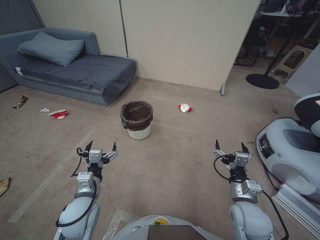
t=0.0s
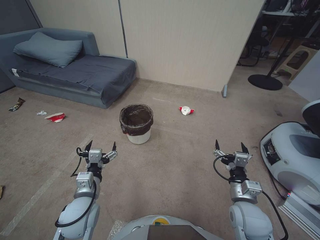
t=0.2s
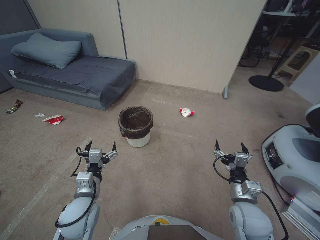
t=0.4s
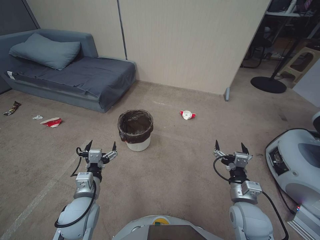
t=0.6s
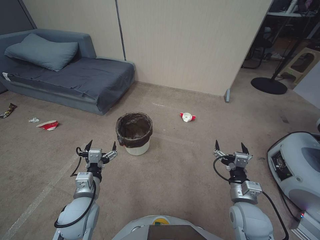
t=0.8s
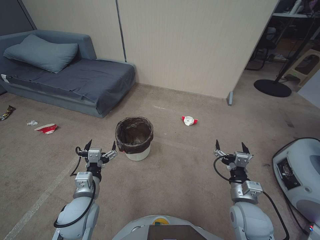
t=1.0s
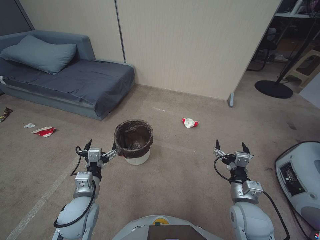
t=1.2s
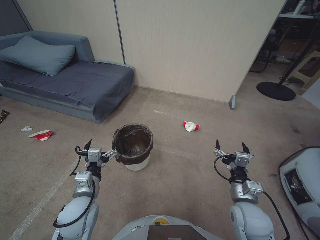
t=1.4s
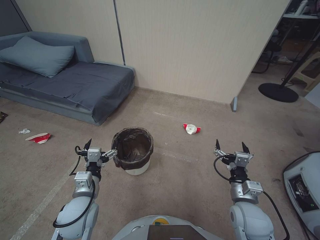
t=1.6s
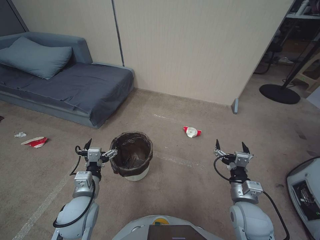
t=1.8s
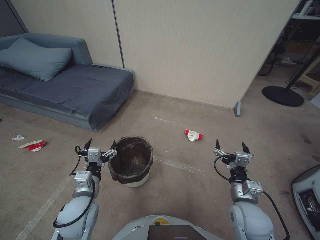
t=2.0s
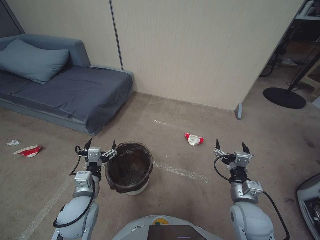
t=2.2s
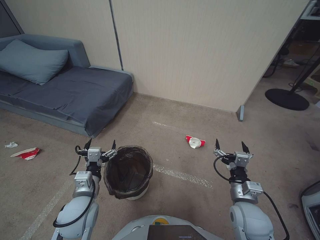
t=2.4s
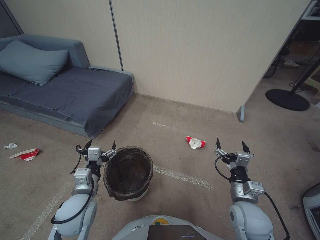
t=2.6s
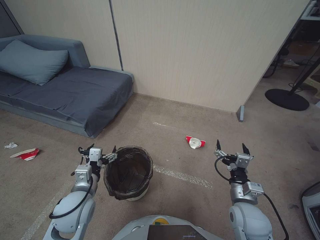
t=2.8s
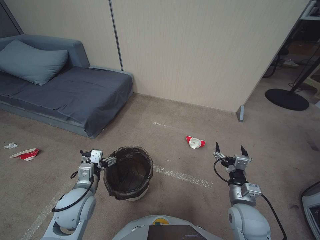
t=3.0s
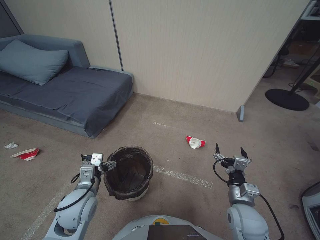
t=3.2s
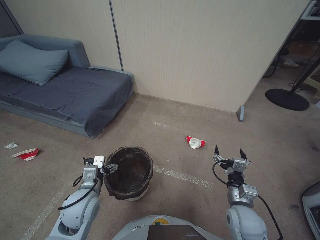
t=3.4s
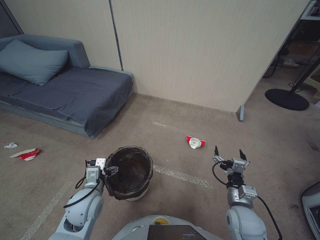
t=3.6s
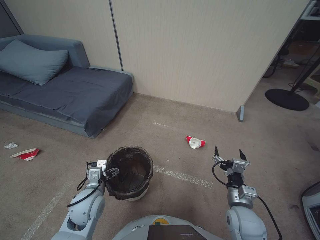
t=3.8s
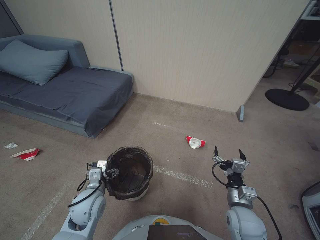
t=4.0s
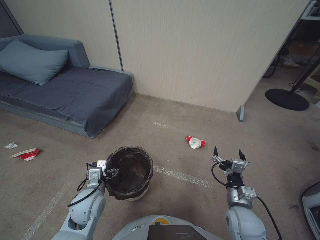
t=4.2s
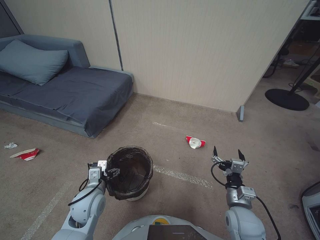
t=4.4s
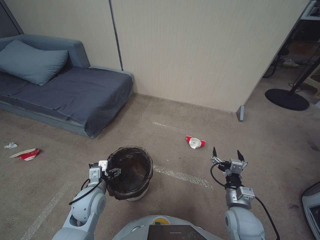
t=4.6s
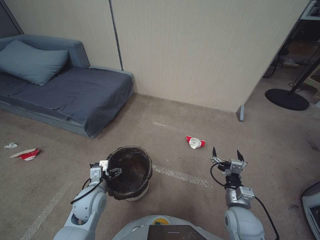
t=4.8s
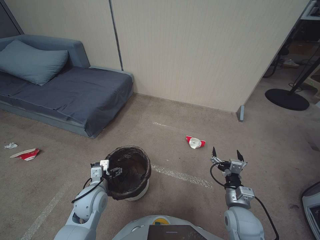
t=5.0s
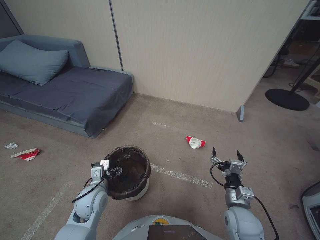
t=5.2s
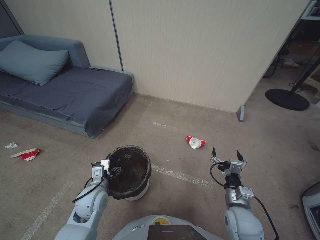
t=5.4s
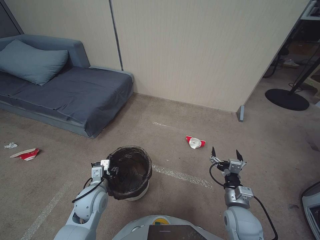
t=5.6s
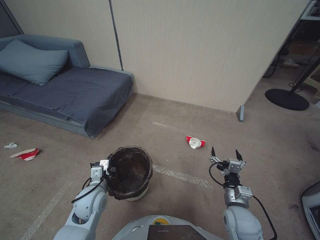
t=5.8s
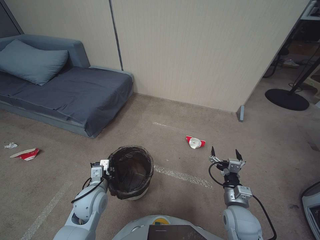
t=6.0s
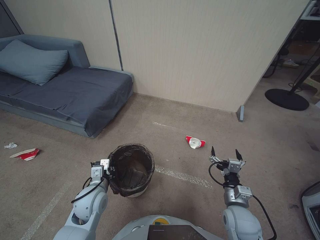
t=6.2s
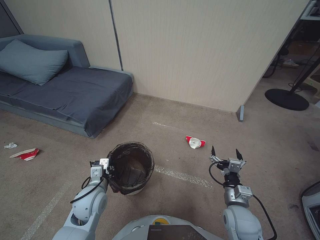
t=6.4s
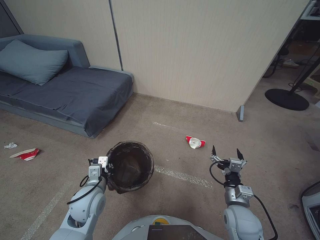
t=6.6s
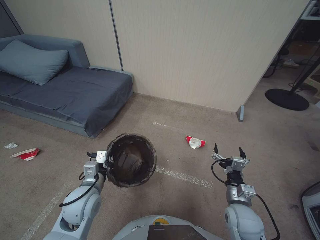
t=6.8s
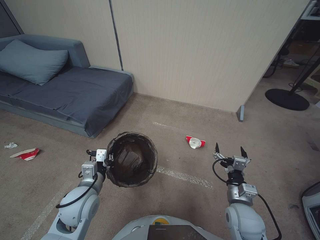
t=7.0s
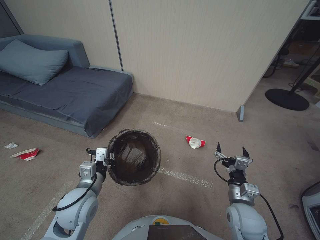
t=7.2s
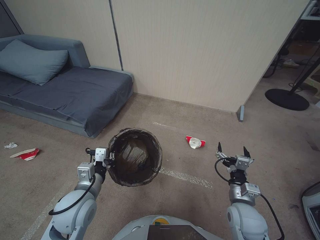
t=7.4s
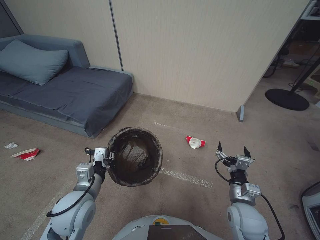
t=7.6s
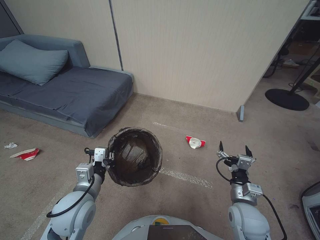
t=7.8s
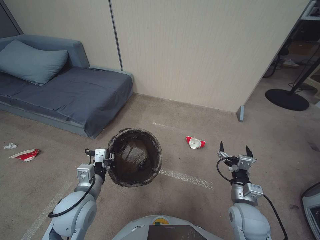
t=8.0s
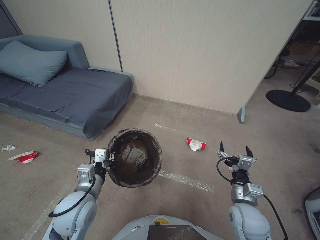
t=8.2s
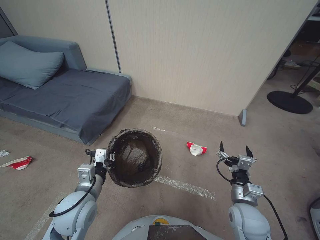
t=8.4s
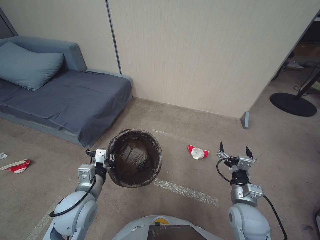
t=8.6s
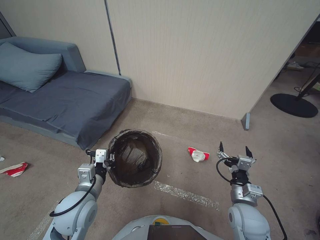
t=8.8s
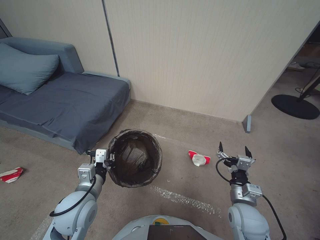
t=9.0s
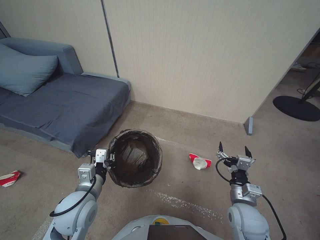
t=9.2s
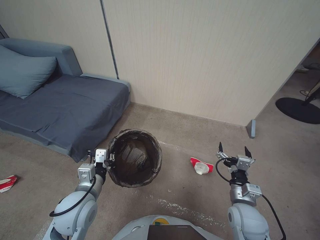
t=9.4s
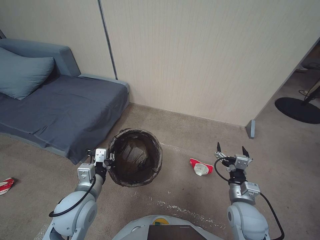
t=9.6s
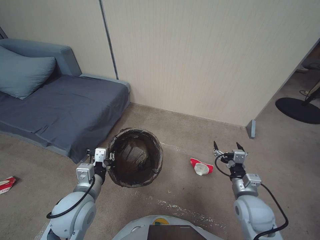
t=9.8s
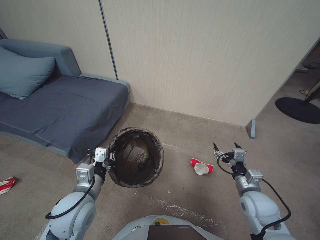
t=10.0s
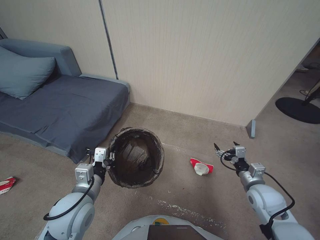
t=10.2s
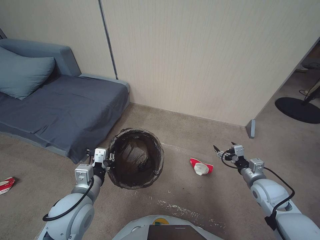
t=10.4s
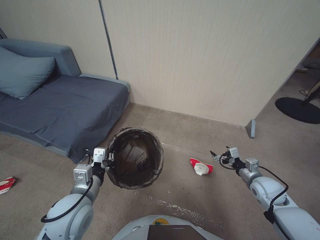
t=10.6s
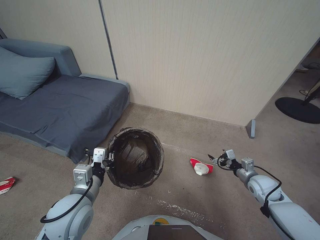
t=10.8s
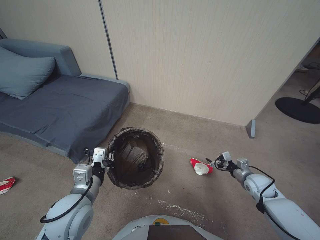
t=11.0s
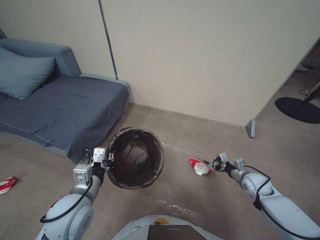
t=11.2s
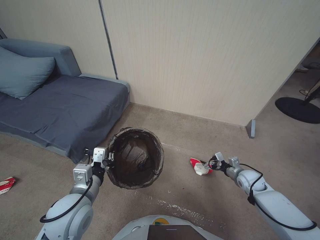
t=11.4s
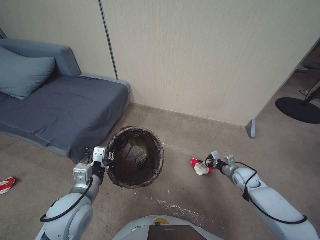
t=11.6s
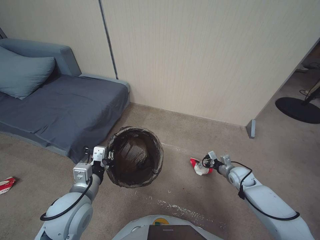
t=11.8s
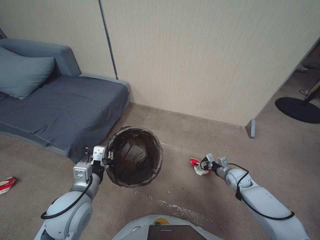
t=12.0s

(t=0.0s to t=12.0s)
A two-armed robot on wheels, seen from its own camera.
Task of the whole recording: Pick up the trash bin, then pick up the garbage from the floor and place it into the trash bin.
t=3.0s - t=4.4s: The left gripper ends up approximately 5 cm from where it was.
t=4.4s - t=6.0s: The left gripper closes up.
t=6.0s - t=7.6s: The left gripper travels upward by roughly 10 cm.
t=7.6s - t=9.0s: Both grippers stay about where they are.
t=9.0s - t=10.4s: The right gripper shifts about 15 cm to the right and forward.
t=10.4s - t=12.0s: The right gripper travels downward and forward by some 15 cm.

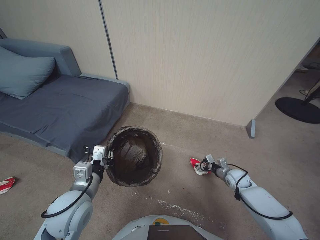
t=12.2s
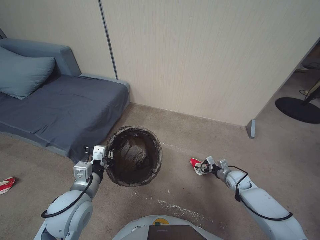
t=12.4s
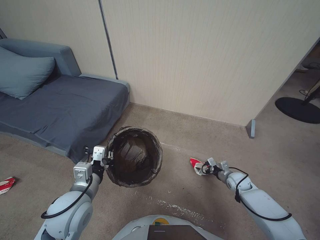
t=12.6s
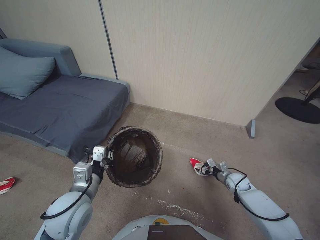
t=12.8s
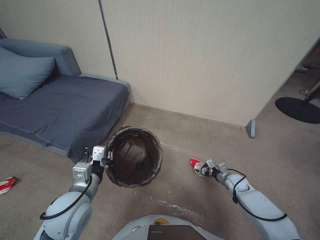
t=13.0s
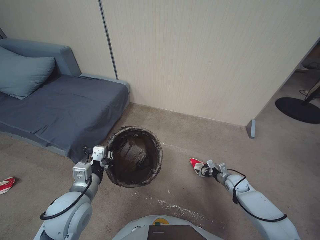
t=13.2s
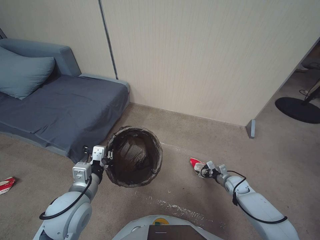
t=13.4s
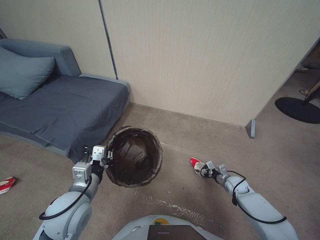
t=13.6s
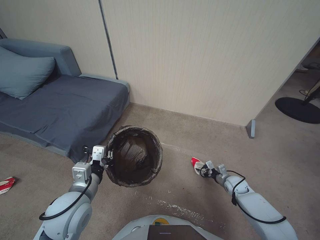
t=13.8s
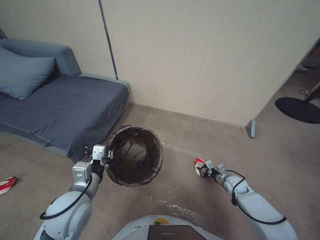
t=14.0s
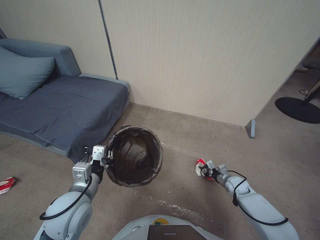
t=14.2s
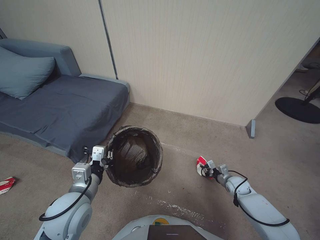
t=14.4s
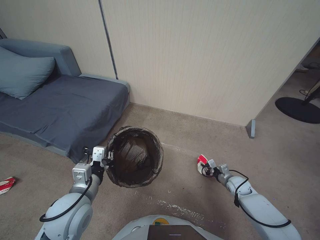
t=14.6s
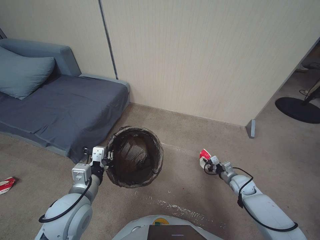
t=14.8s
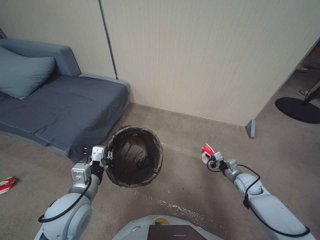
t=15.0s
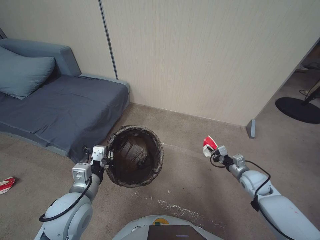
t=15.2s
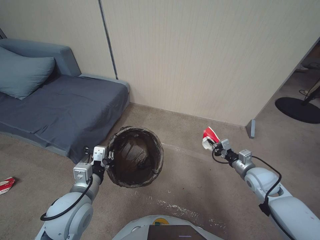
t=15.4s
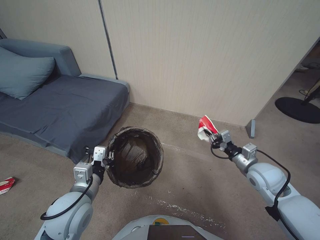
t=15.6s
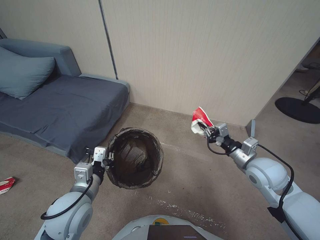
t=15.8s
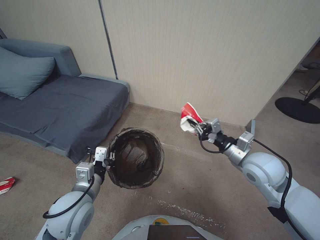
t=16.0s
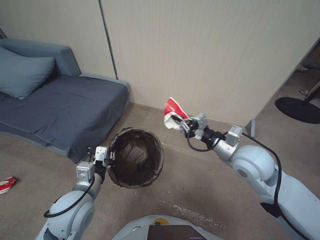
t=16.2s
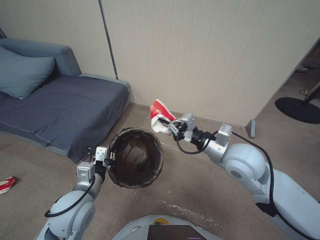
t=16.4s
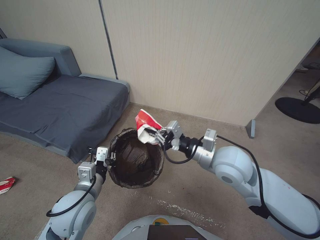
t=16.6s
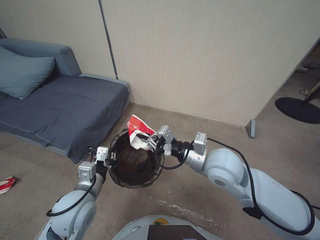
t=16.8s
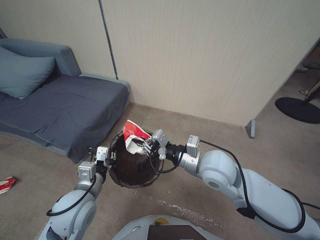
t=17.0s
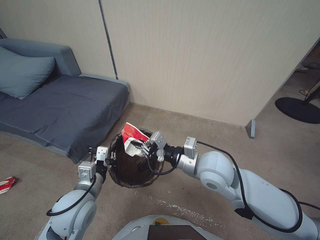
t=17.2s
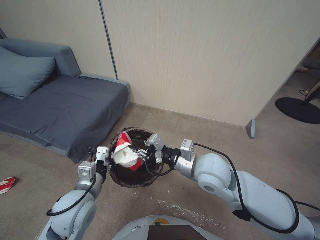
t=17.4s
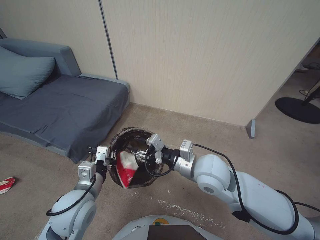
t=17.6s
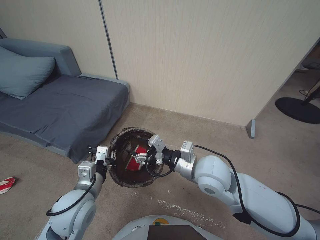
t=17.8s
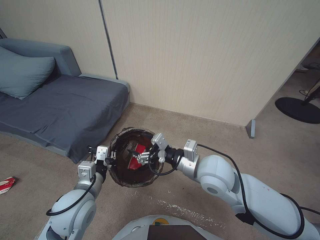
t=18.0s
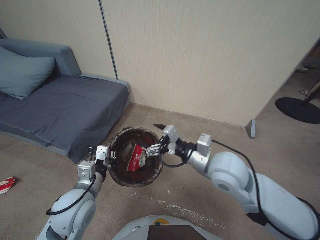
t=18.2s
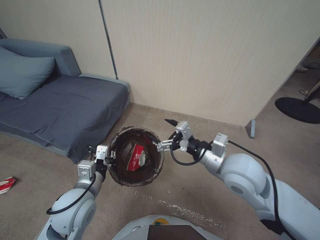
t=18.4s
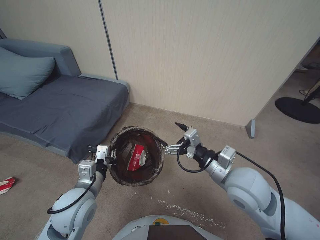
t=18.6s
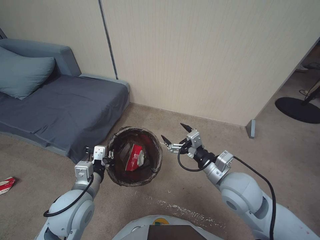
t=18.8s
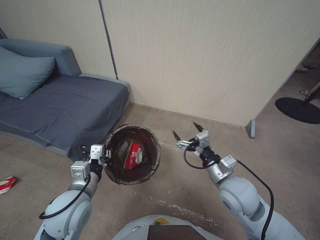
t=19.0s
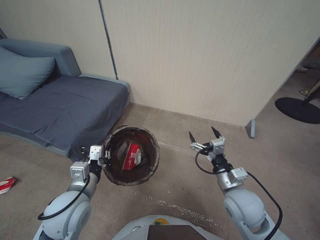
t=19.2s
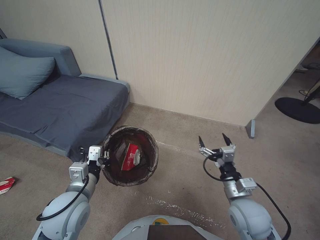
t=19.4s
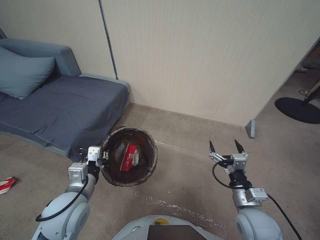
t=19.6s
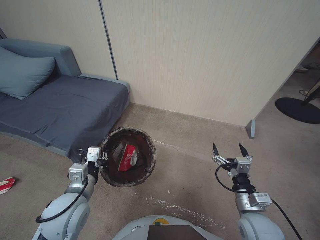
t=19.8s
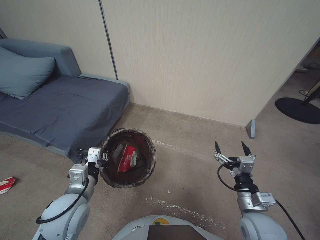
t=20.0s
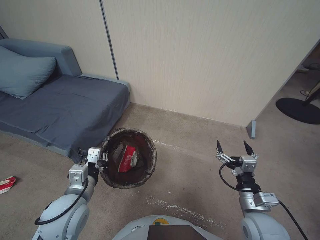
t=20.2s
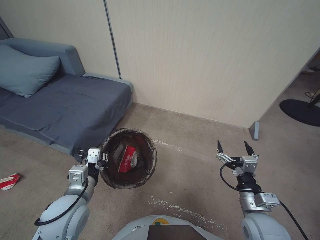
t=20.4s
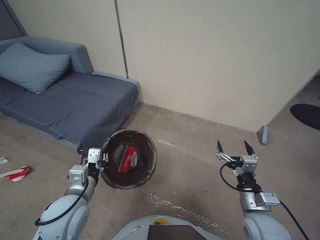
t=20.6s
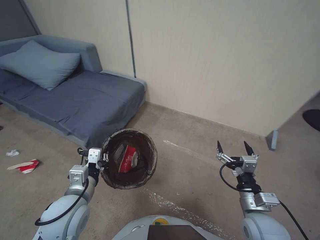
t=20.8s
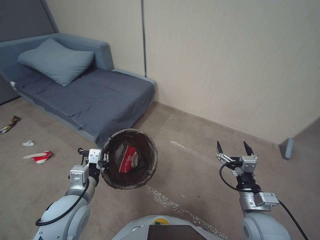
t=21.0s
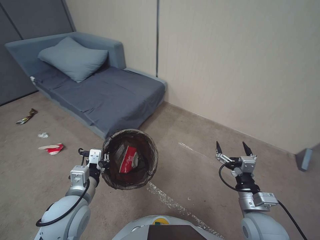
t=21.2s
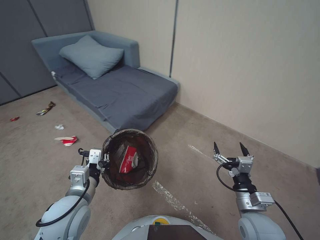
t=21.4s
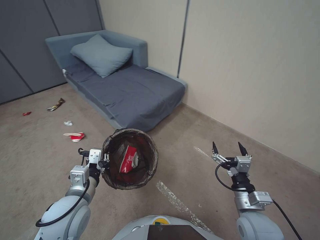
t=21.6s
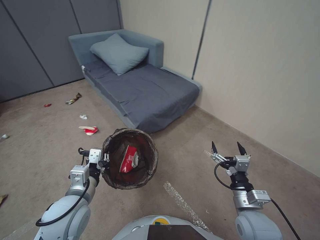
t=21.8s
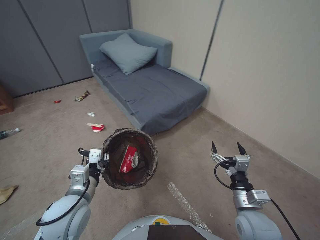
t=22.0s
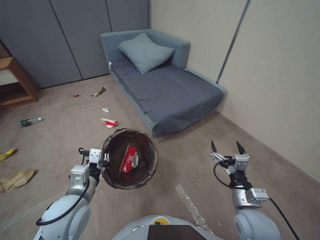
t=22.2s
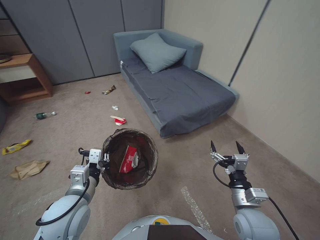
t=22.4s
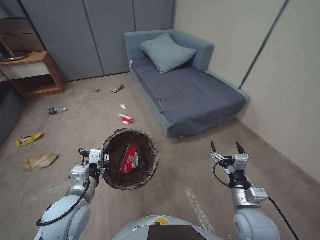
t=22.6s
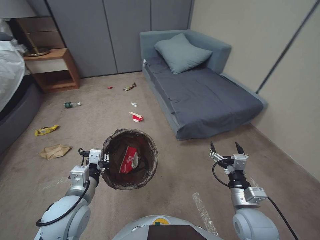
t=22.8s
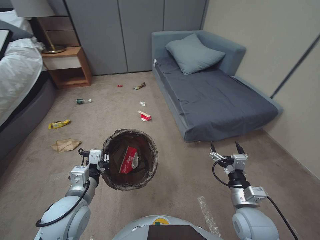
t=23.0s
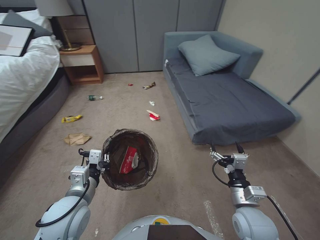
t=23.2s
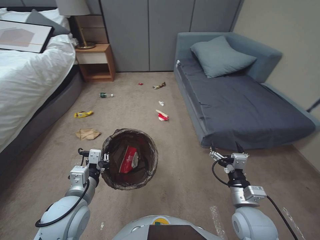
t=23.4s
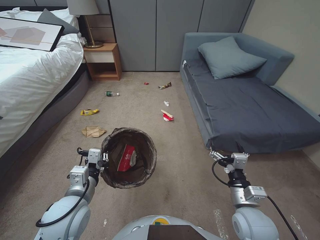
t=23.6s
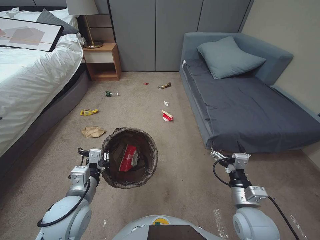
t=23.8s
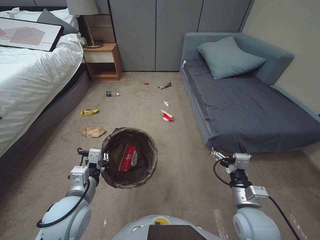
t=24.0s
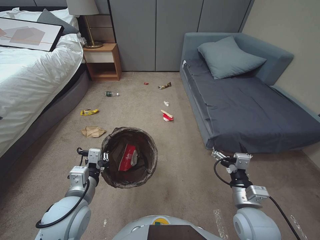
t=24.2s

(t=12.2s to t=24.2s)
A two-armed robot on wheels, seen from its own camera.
Task of the whole recording: Pick up the trash bin, then pick up the garbage from the floor and place it into the trash bin.
t=12.2s - t=13.8s: The grippers stay close to where they were, moving slightly.
t=13.8s - t=15.2s: The right gripper goes some 10 cm upward, and closes up.
t=15.2s - t=16.6s: The right gripper shifts approximately 35 cm upward and to the left.
t=16.6s - t=18.2s: The right gripper opens up.
t=18.2s - t=19.8s: The right gripper heads downward, to the right and backward, covering roughly 20 cm.
